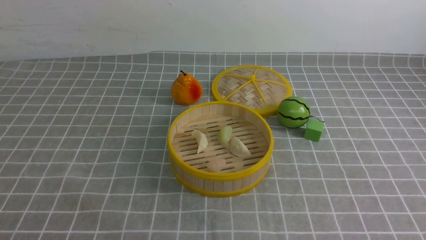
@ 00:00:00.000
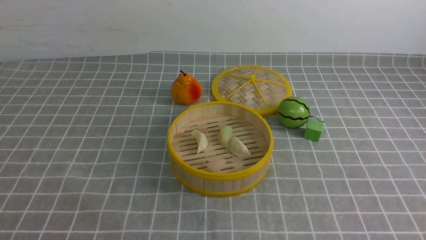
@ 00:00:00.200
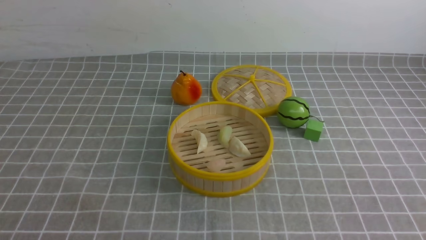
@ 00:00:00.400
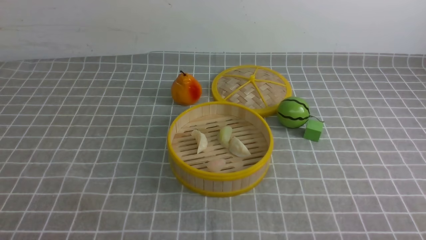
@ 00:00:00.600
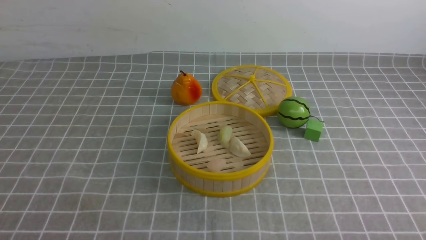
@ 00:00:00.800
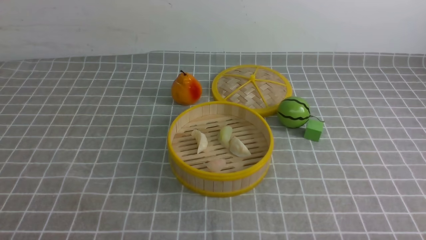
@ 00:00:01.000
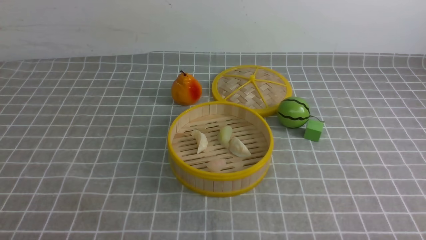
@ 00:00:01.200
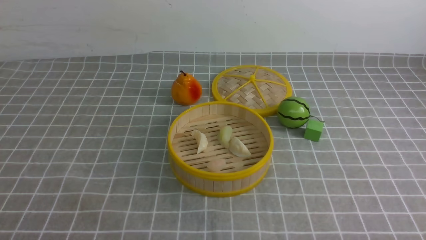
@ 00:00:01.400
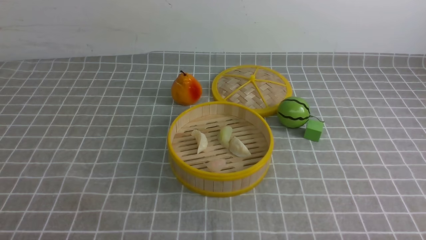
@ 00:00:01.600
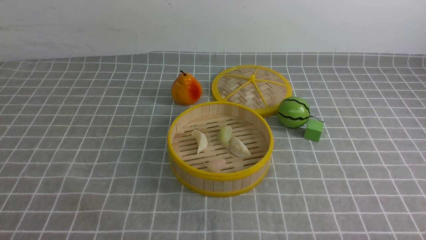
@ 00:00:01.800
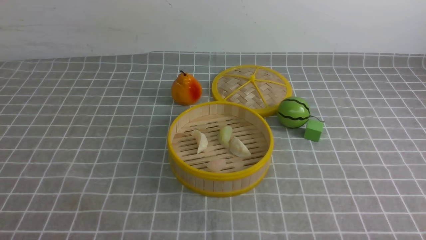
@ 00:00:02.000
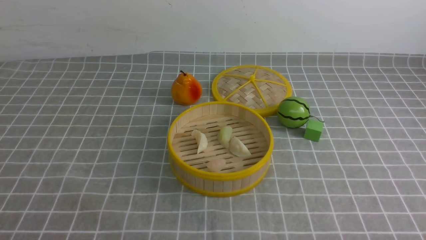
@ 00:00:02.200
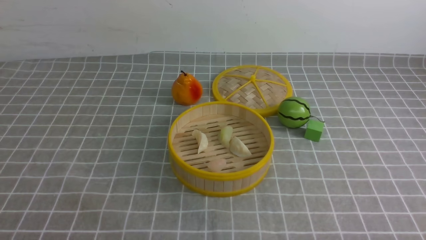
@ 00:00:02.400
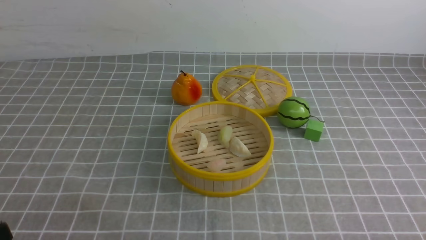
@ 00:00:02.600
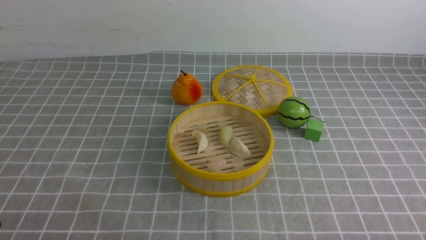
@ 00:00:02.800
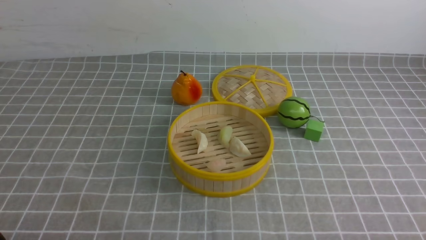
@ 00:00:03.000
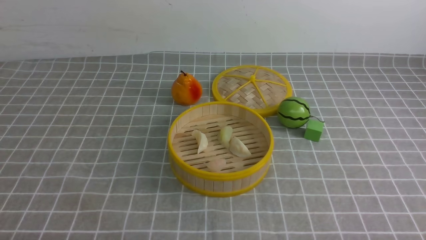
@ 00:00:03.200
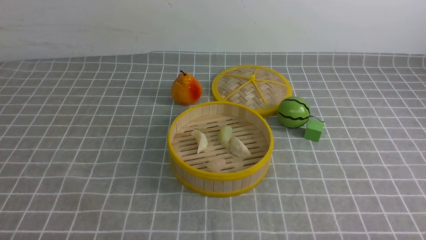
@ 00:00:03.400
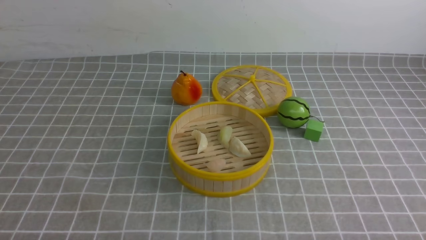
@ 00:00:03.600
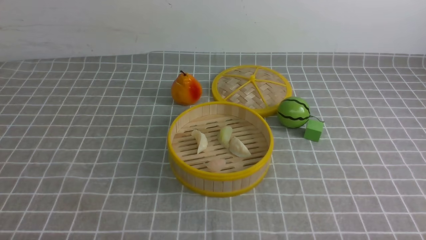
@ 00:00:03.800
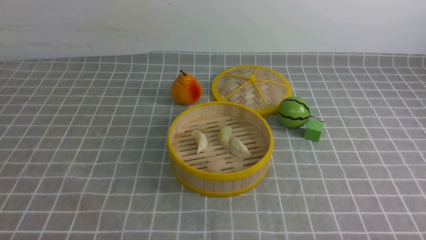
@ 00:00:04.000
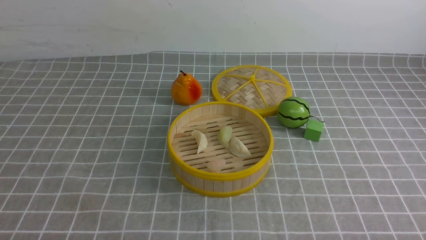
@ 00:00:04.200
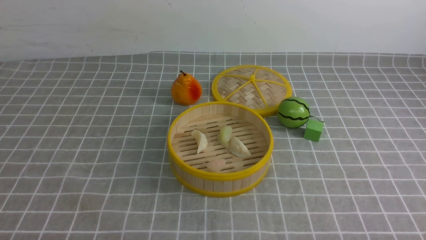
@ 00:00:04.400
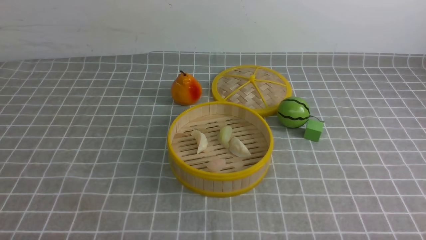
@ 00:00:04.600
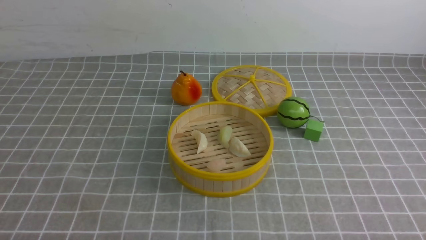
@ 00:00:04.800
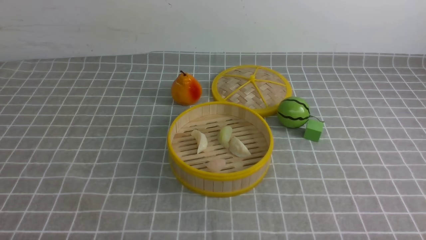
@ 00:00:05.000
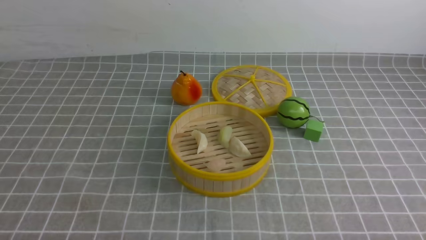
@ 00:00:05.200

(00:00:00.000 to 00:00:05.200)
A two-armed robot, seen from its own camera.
Task of the whole recording: put the dumplings into the steamer on the table with the grey tablecloth.
00:00:03.400 - 00:00:05.200: The two grippers keep their place.
